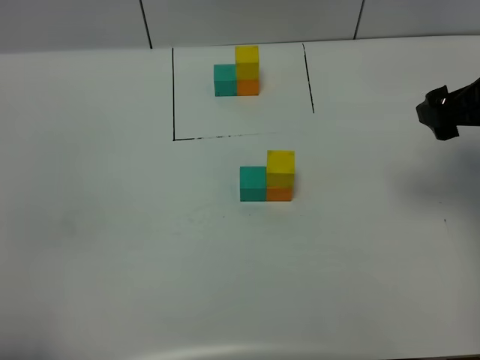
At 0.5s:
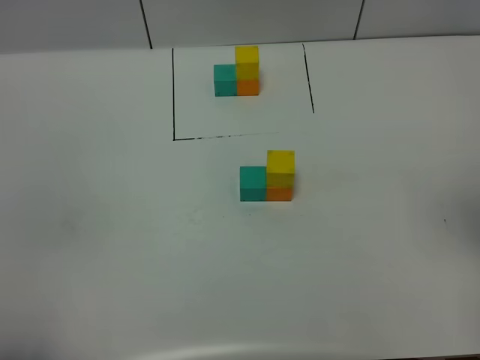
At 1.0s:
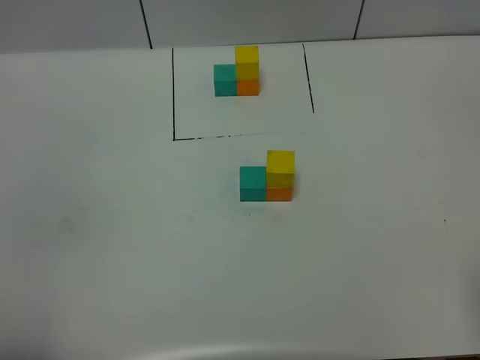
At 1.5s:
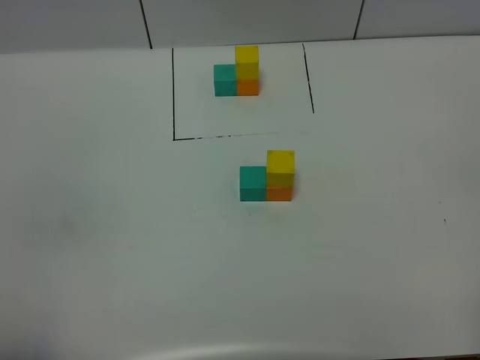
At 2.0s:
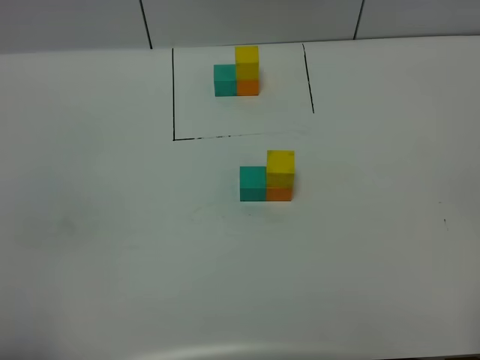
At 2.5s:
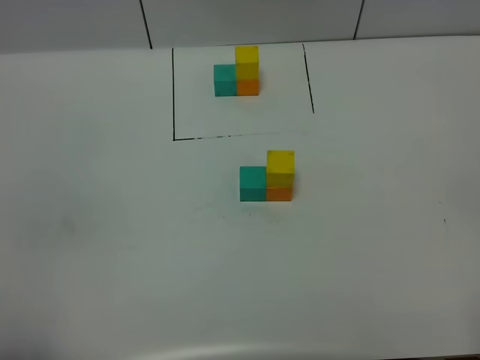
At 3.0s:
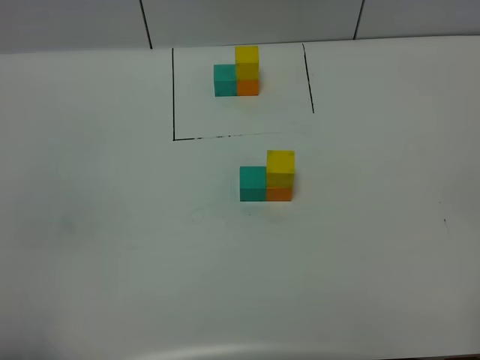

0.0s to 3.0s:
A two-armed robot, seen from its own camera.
Task of the whole recording: According to the building block template in front, assemble the scattered blocks together.
0.0s to 1.5s: The right gripper moves backward, approximately 30 cm.

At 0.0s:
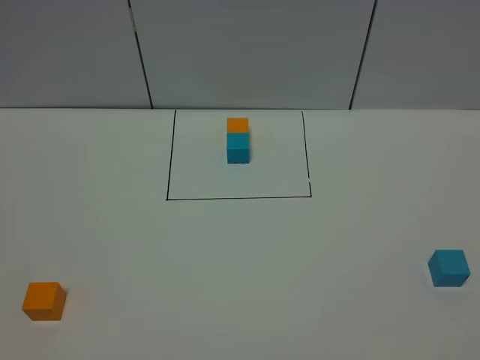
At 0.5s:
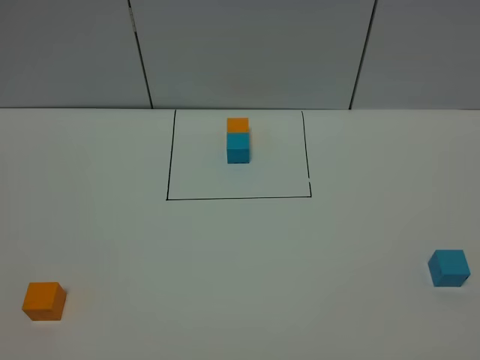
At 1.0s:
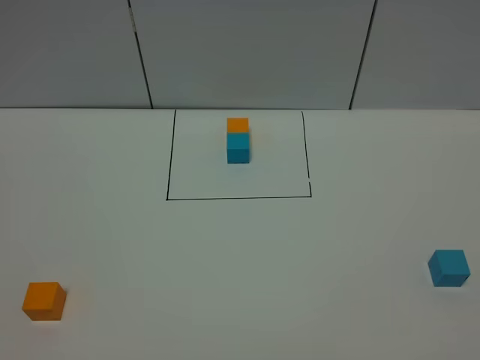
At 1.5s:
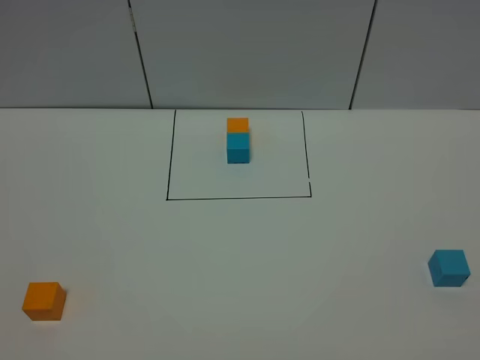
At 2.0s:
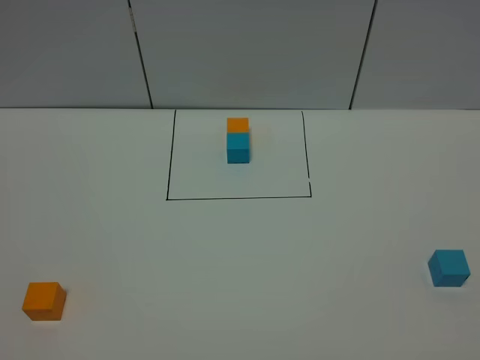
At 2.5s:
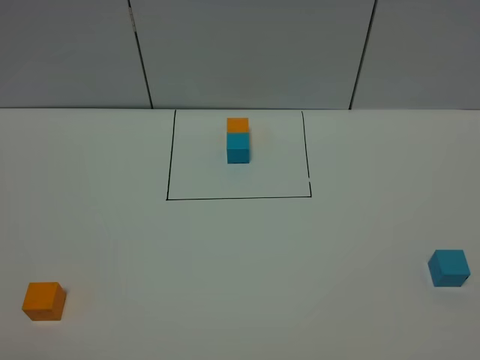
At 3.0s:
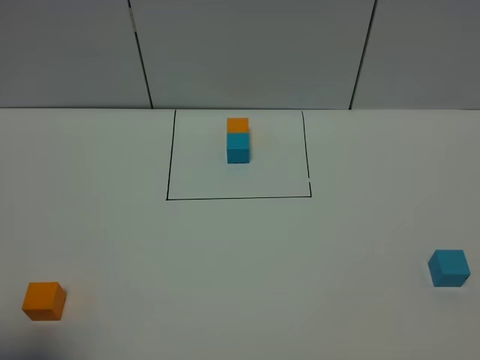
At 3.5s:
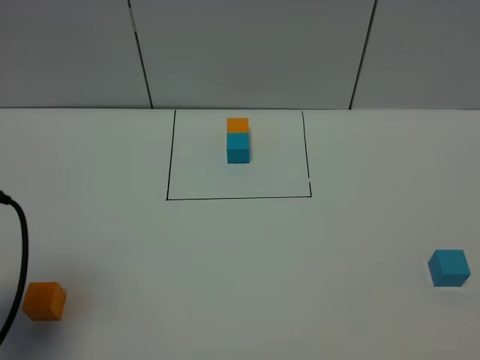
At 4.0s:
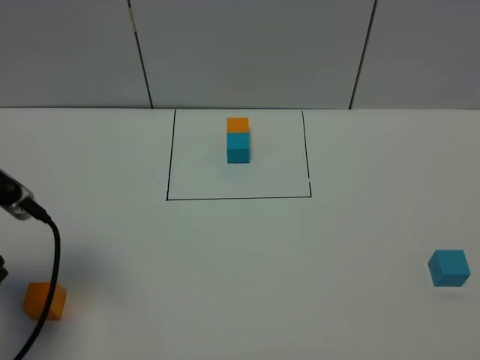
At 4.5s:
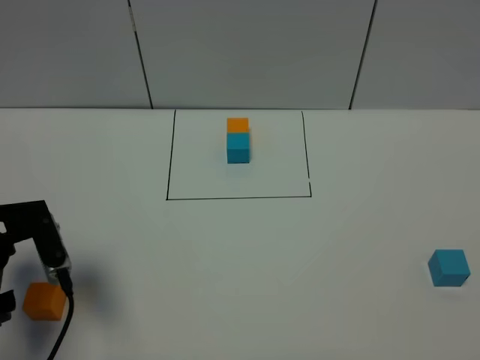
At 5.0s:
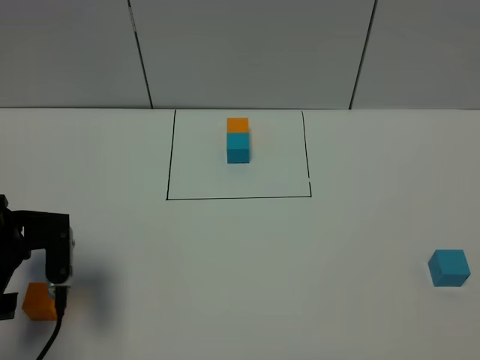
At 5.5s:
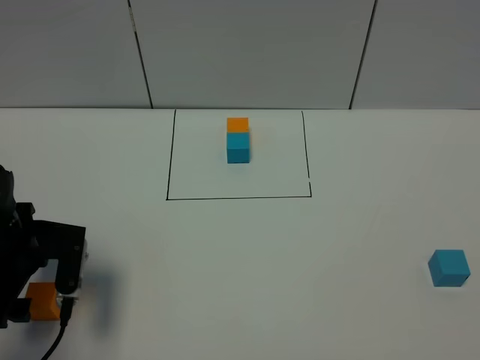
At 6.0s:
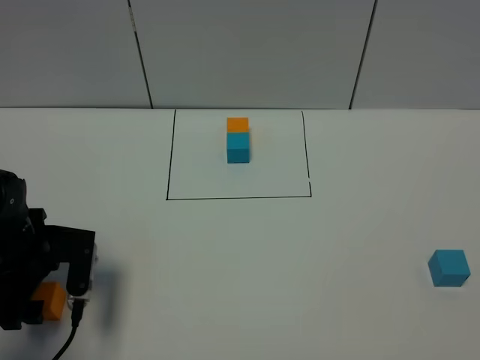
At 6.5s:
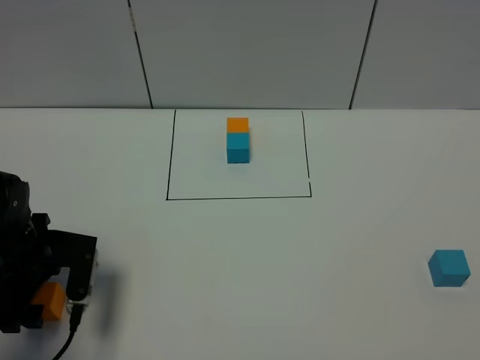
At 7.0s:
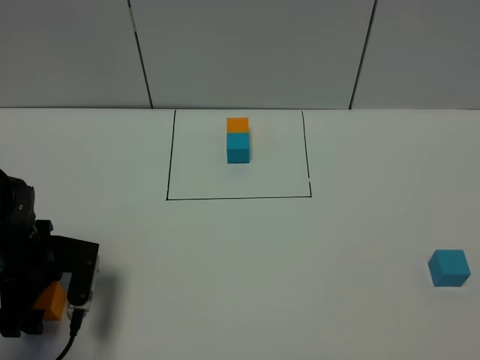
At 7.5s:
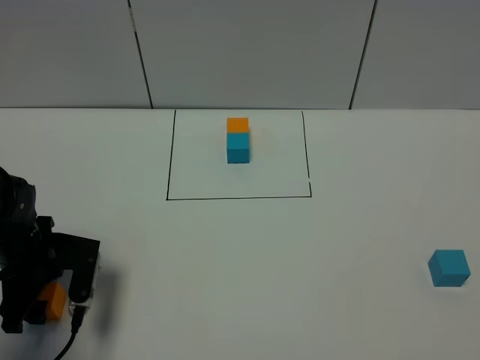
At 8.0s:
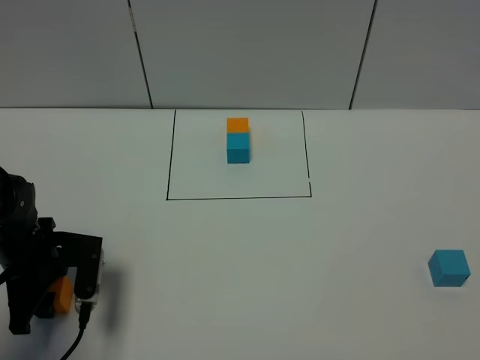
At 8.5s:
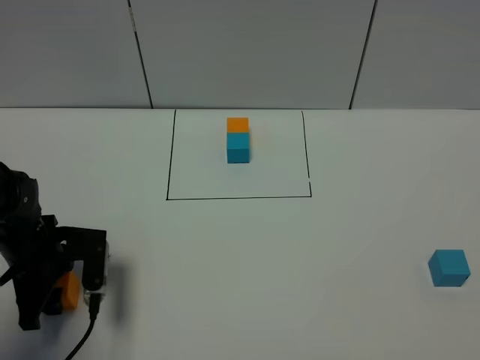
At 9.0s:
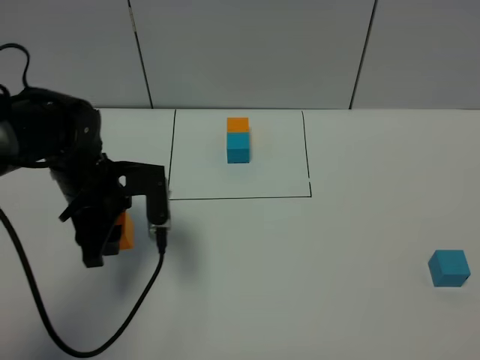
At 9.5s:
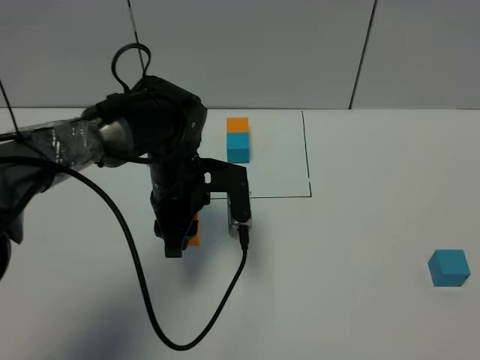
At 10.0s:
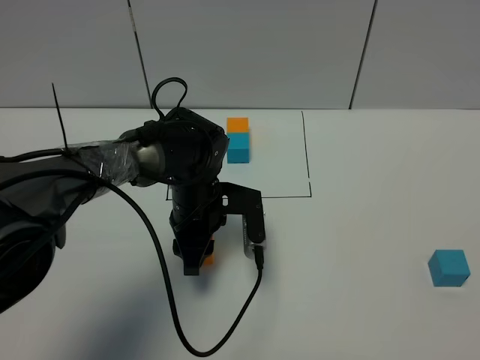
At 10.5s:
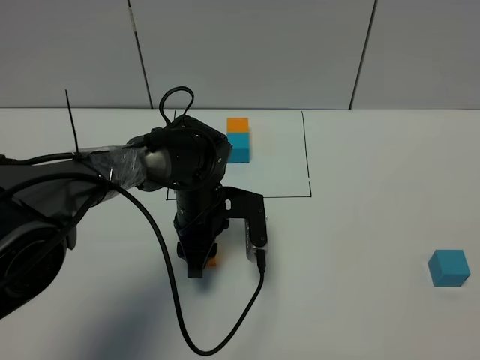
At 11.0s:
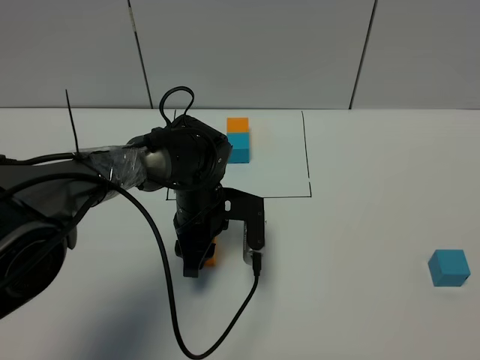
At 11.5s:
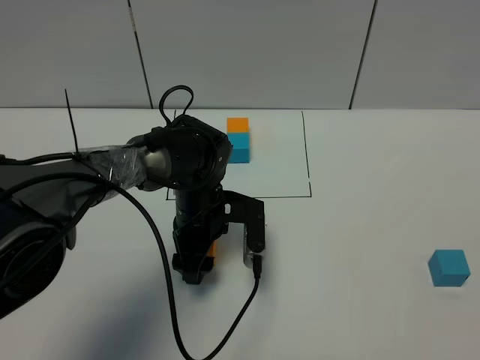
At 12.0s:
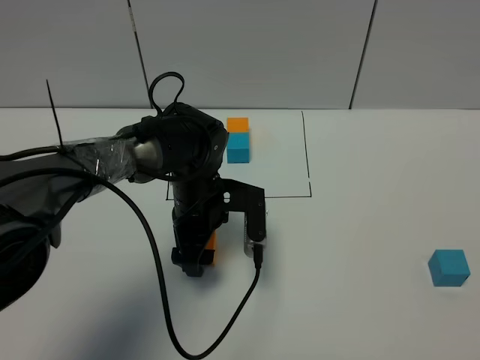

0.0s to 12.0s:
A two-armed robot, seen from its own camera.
Task of the whole recording: According to the building block template in front, assemble the scattered blocks together.
0.0s to 2.0s: Both grippers stay about where they are.
2.0s to 4.0s: The left gripper heads forward, covering some 25 cm.
4.0s to 6.0s: The left gripper goes roughly 15 cm downward and forward.
6.0s to 8.0s: The left gripper closes up.
8.0s to 10.0s: The left gripper travels to the right by some 20 cm.
10.0s to 12.0s: The left gripper opens its fingers.

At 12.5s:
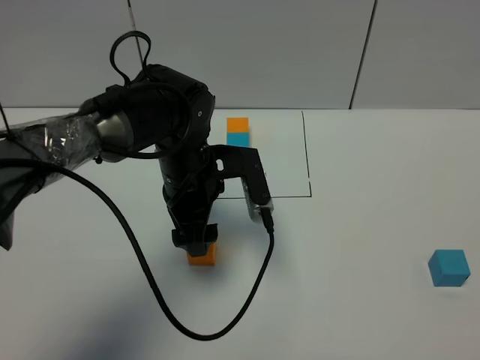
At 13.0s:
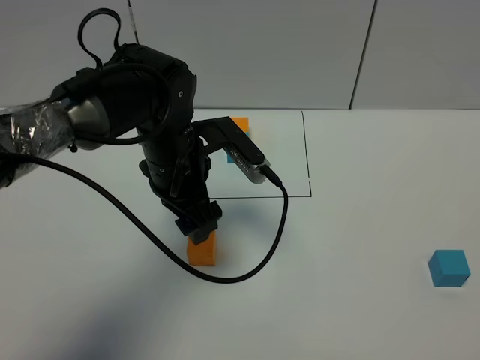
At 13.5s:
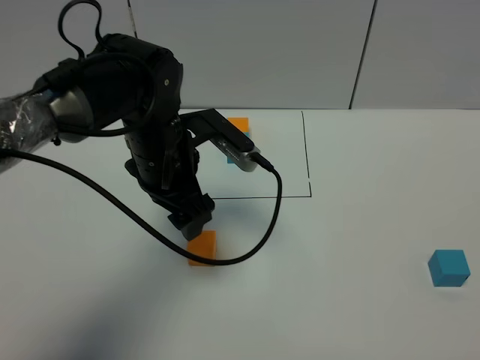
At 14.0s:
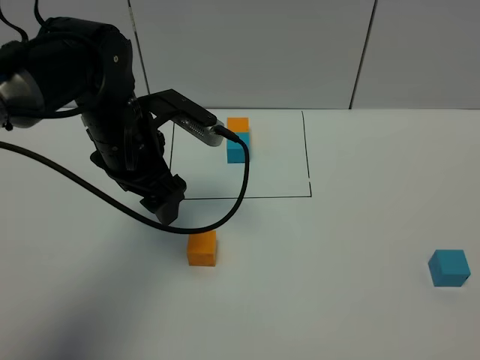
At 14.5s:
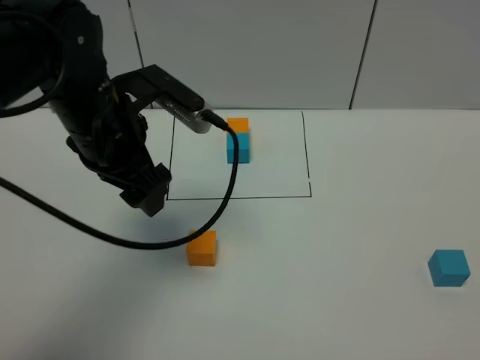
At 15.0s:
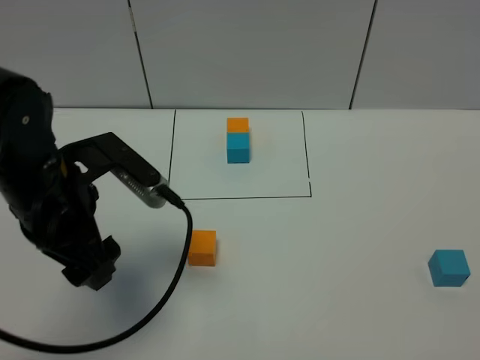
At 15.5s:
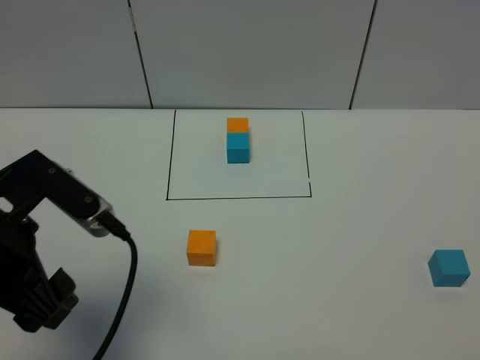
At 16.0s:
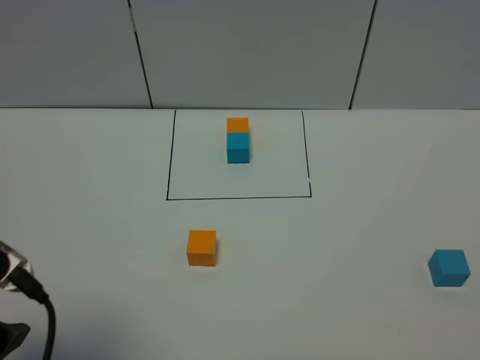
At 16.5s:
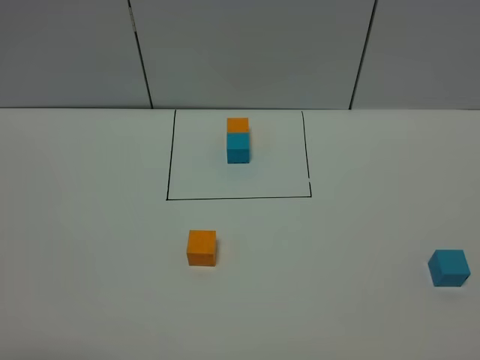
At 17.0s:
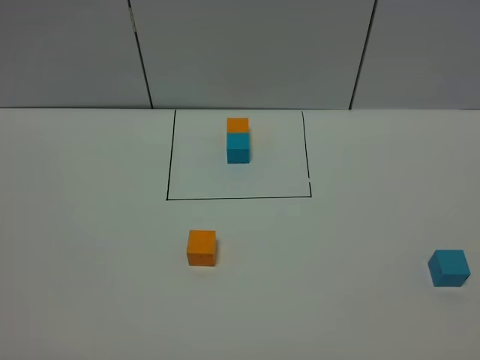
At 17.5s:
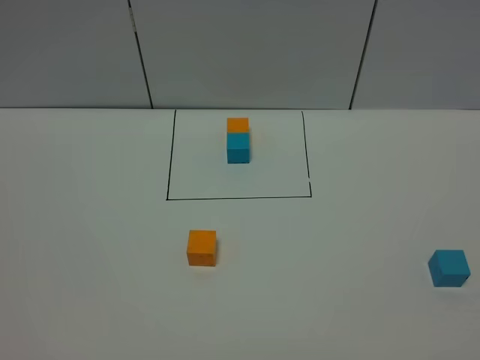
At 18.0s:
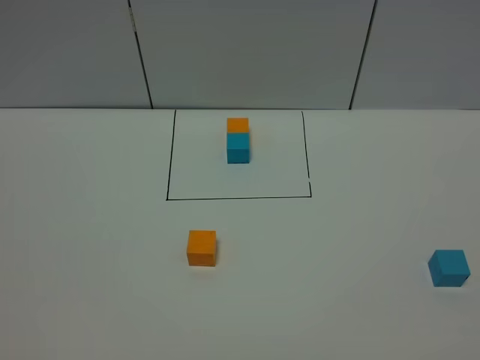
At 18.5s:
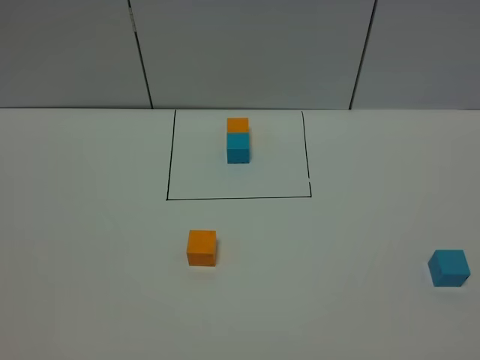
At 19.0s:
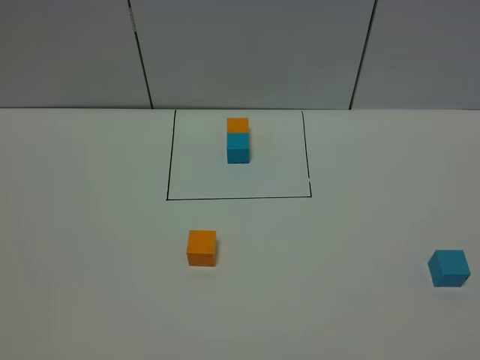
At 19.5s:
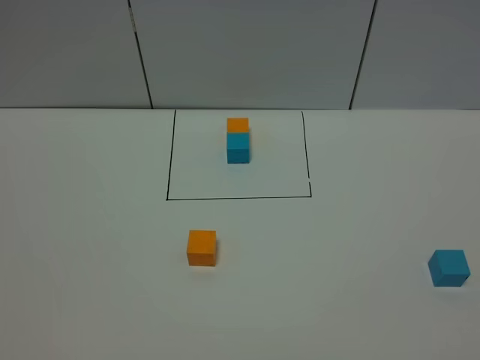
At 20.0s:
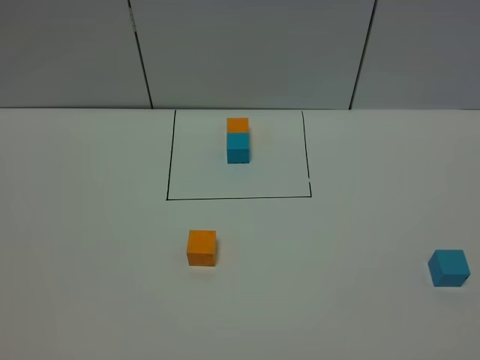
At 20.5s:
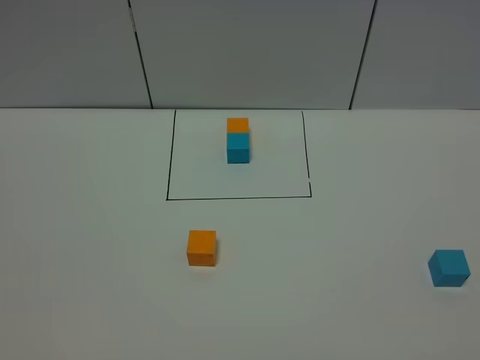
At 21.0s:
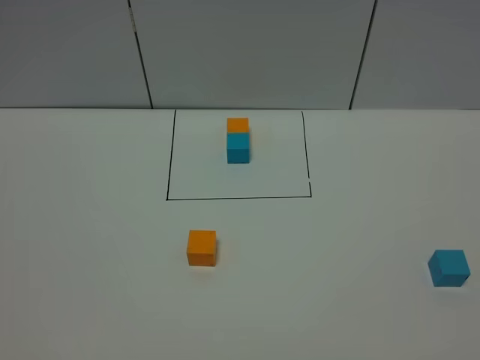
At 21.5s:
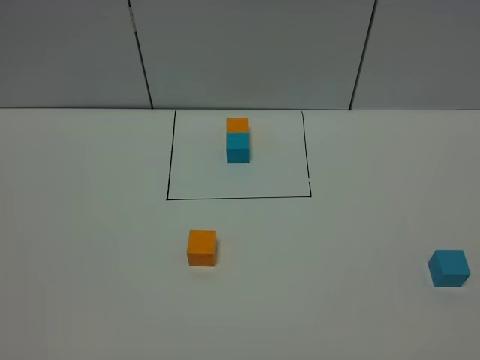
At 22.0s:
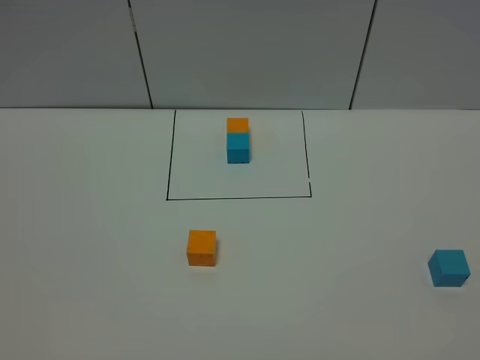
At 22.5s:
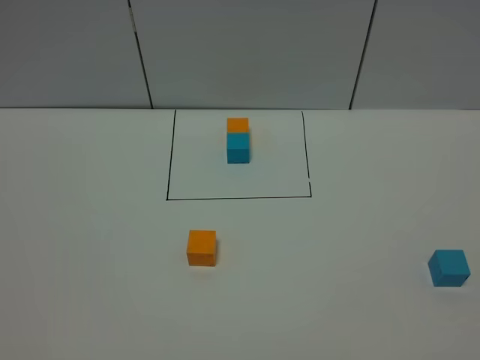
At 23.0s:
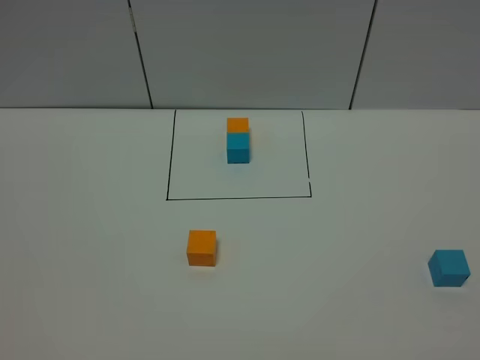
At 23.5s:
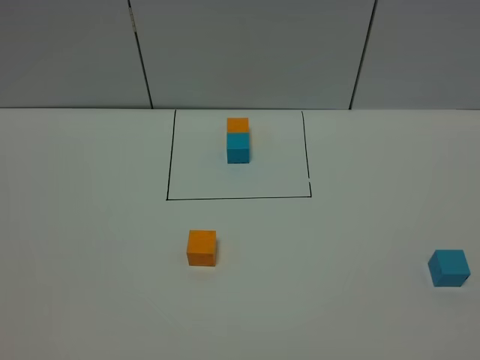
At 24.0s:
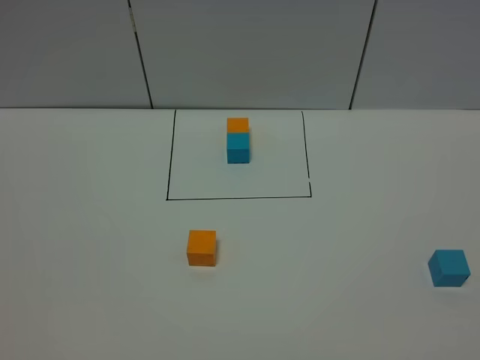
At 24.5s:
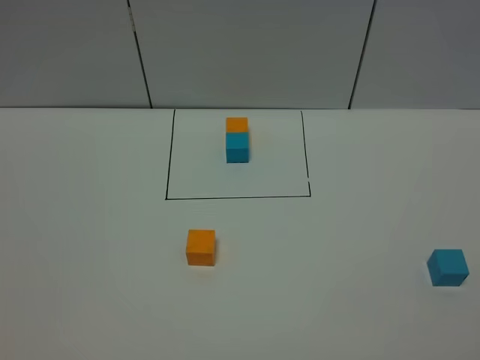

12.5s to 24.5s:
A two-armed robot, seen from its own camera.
Task of the whole recording: According to the building block template in front, assemble the scattered blocks together.
12.5s to 14.5s: The left gripper is displaced upward and to the left by some 10 cm.
14.5s to 16.5s: The left gripper is displaced backward and to the left by roughly 30 cm.
20.5s to 22.5s: Both grippers stay about where they are.
